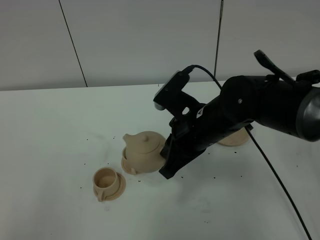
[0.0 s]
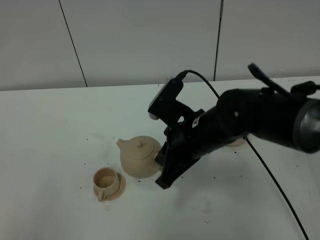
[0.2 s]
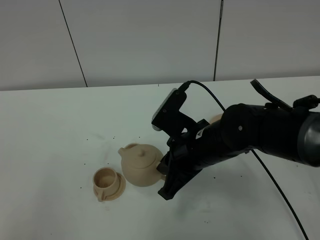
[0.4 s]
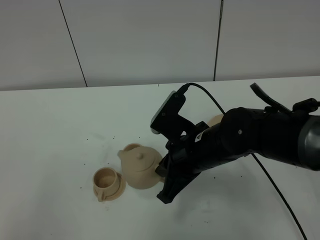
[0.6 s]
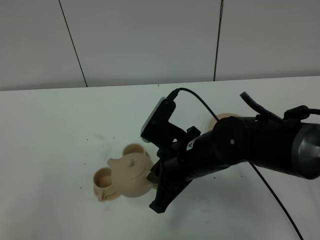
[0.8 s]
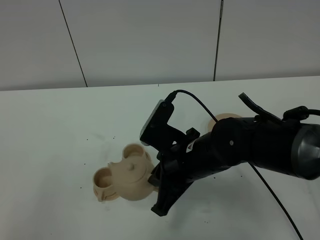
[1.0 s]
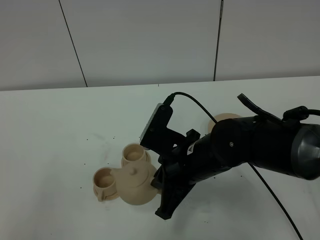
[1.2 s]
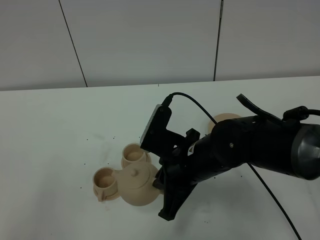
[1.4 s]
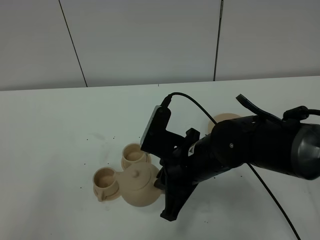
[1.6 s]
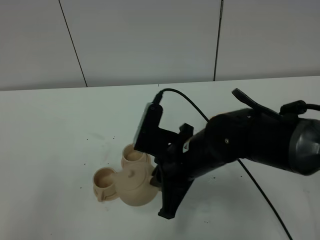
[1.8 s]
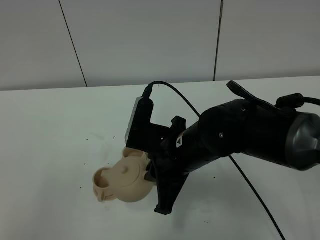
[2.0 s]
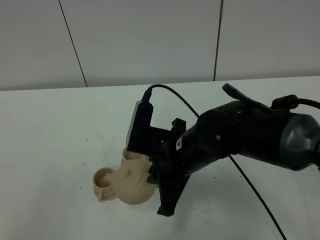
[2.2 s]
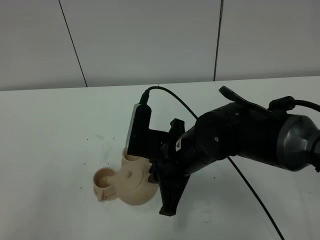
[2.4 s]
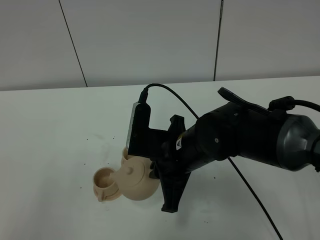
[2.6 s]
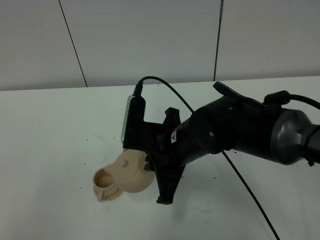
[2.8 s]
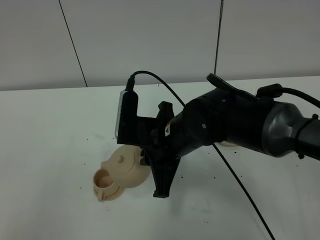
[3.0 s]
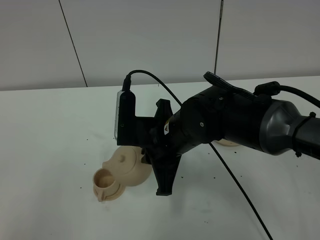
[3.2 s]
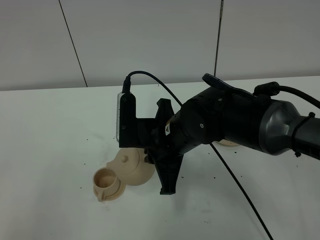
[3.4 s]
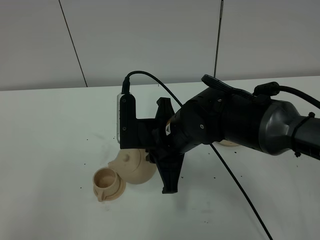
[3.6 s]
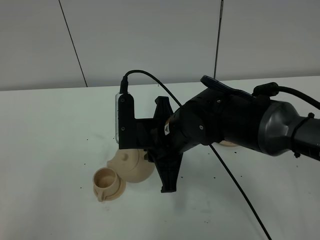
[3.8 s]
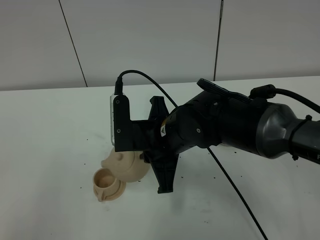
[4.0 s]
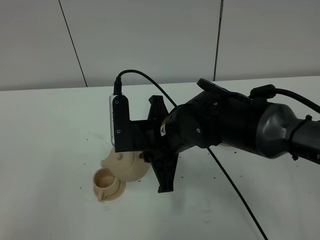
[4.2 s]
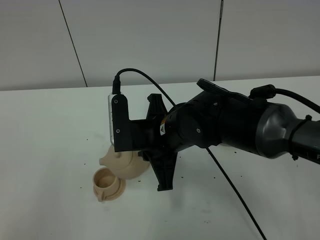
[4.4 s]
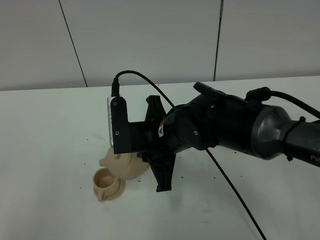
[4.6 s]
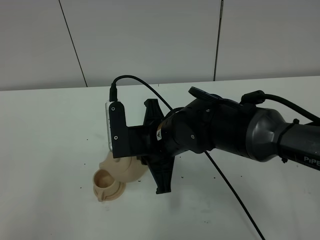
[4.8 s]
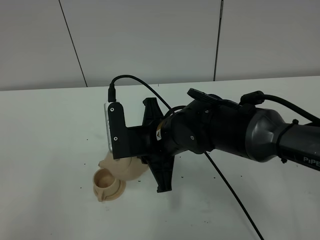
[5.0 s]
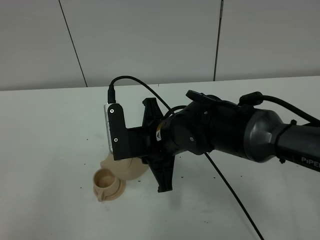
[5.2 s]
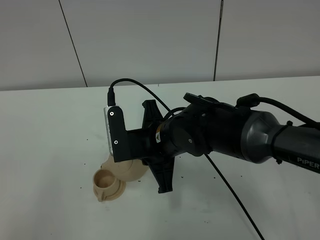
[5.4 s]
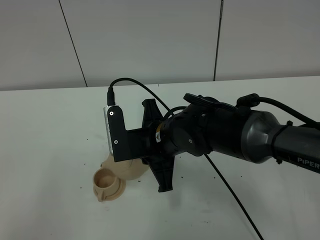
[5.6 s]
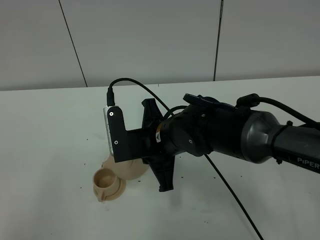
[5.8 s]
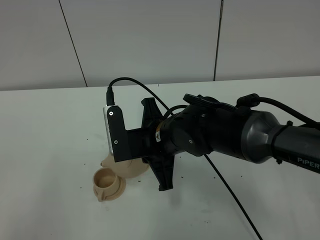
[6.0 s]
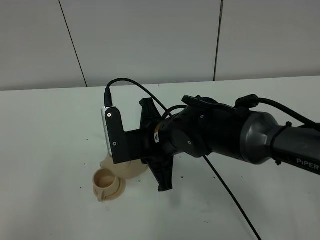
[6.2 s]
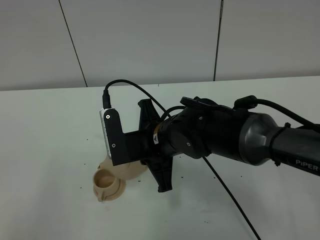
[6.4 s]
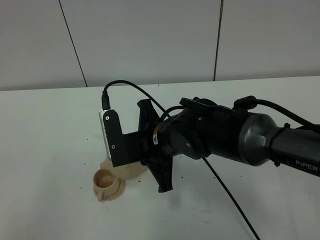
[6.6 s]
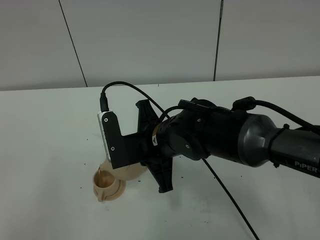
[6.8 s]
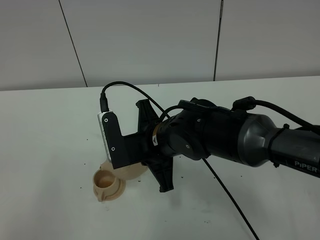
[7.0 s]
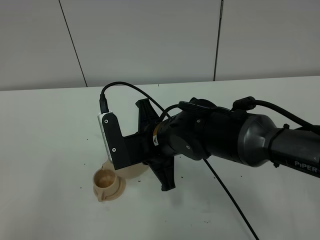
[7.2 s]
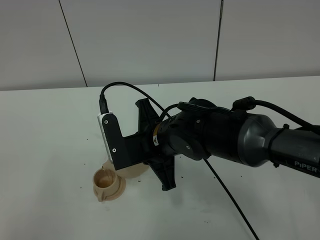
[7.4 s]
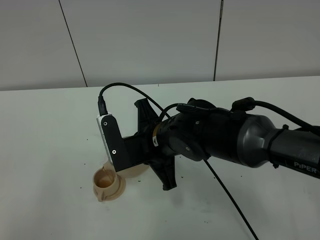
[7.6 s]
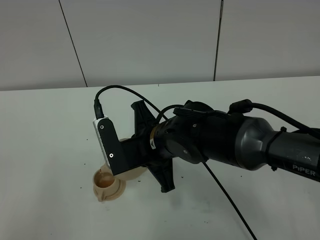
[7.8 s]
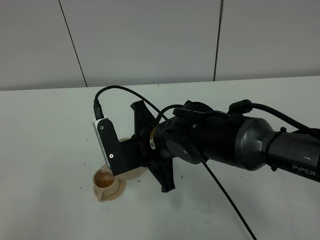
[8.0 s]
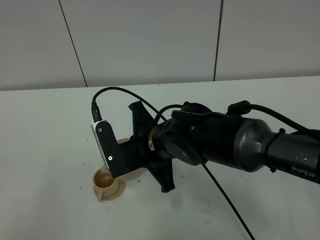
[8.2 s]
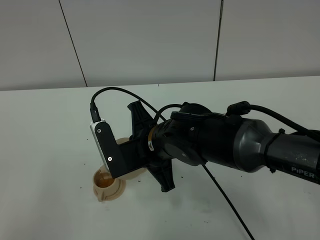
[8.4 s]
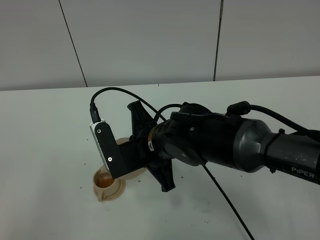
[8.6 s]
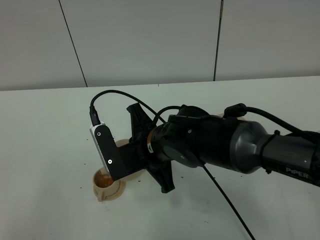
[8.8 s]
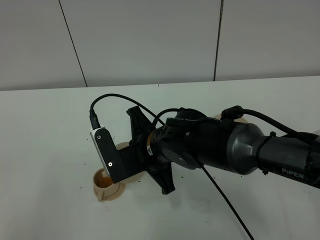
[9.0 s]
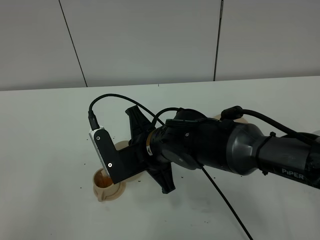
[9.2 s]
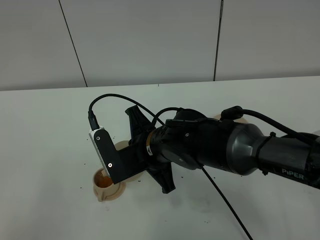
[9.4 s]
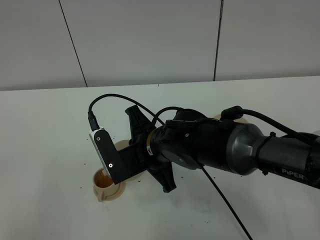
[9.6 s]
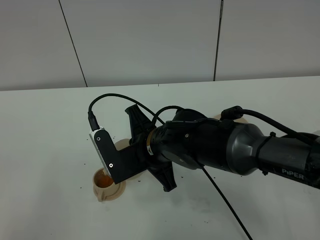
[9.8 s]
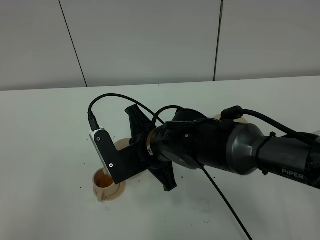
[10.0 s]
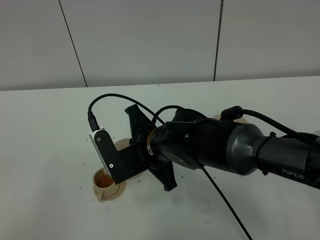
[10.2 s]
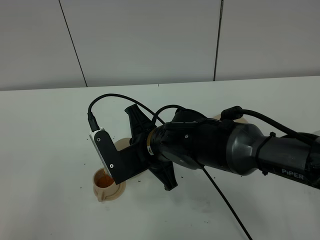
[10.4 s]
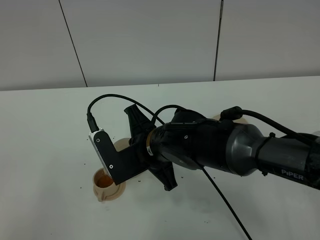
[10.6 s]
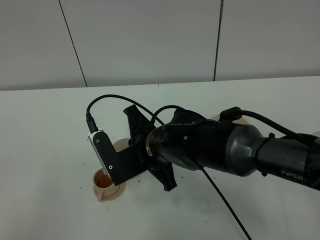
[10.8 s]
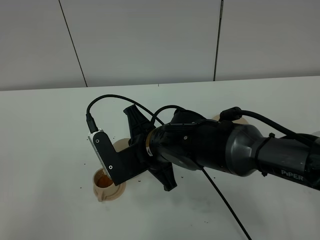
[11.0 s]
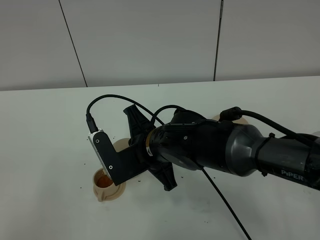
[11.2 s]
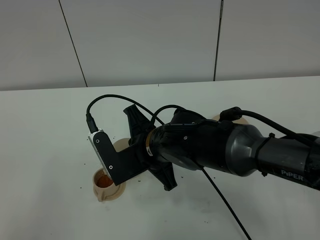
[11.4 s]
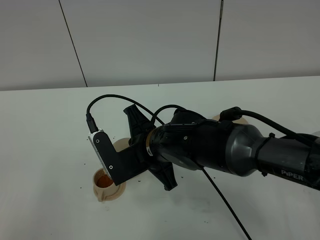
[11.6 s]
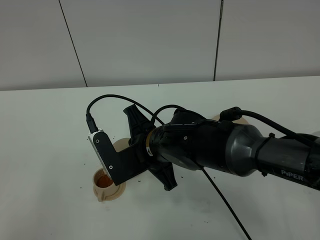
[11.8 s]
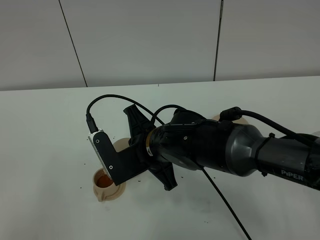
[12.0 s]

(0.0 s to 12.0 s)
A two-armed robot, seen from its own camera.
Task of the whole recording: grasp the brown teapot and pour the tea into the two brown teacups one by one, put the brown teapot back in its original place.
0.0 s - 1.6 s: The right gripper moves about 5 cm.
1.6 s - 3.0 s: The right gripper moves some 5 cm.
3.0 s - 6.0 s: The grippers make only small movements.
6.0 s - 9.0 s: The grippers stay close to where they were, moving slightly.
9.0 s - 12.0 s: Both grippers stay about where they are.

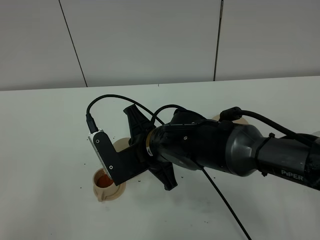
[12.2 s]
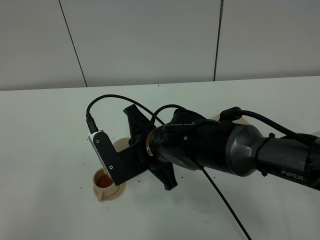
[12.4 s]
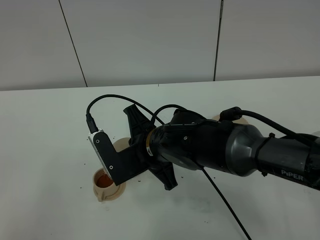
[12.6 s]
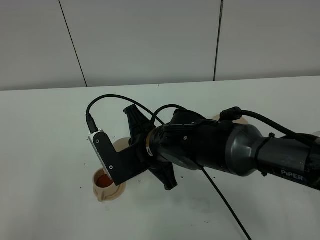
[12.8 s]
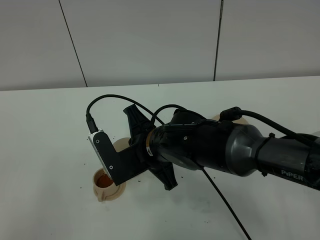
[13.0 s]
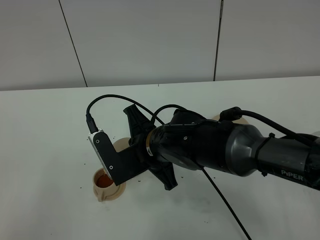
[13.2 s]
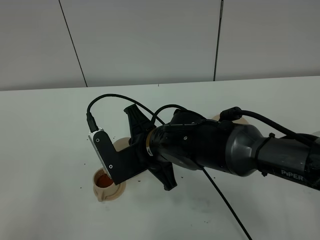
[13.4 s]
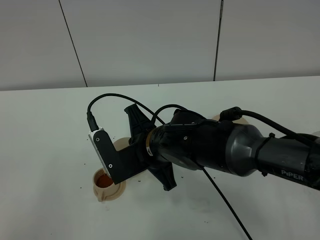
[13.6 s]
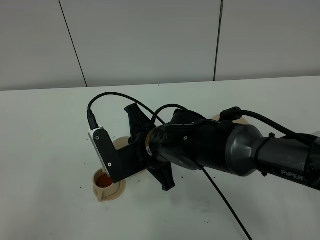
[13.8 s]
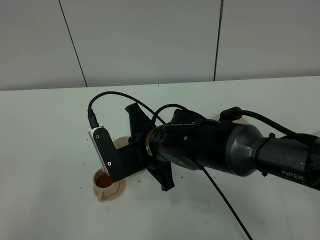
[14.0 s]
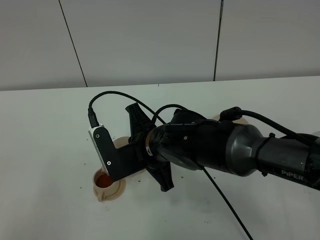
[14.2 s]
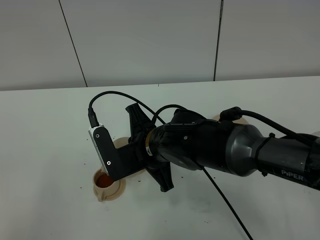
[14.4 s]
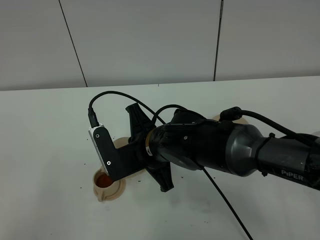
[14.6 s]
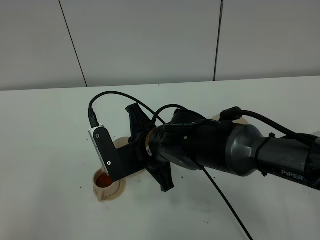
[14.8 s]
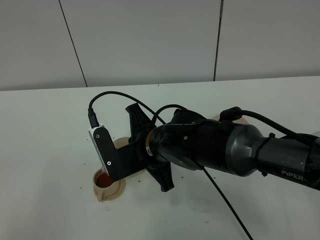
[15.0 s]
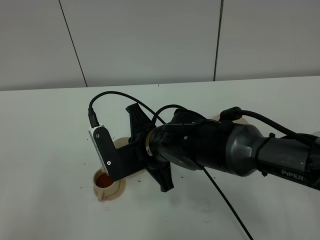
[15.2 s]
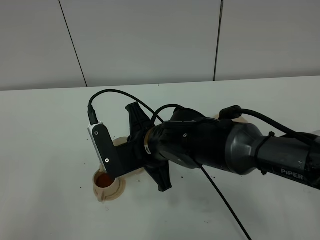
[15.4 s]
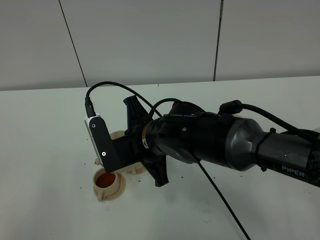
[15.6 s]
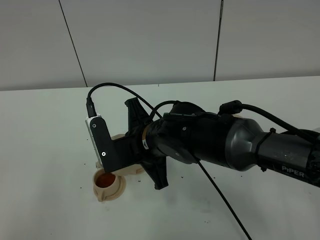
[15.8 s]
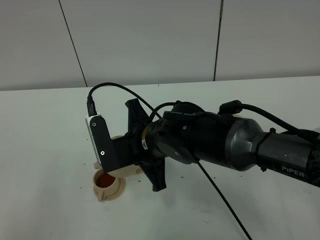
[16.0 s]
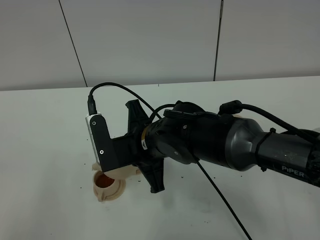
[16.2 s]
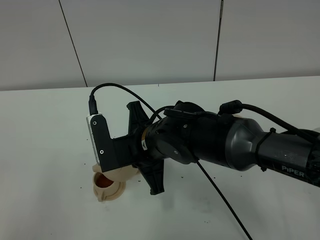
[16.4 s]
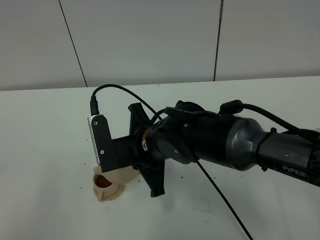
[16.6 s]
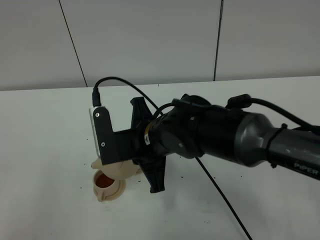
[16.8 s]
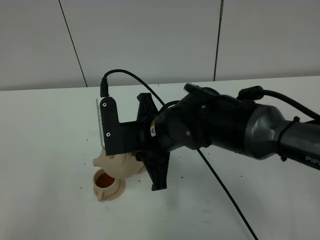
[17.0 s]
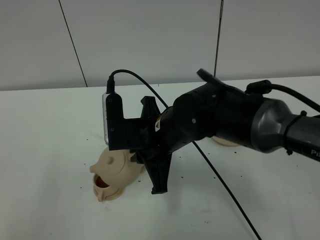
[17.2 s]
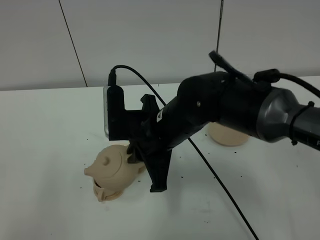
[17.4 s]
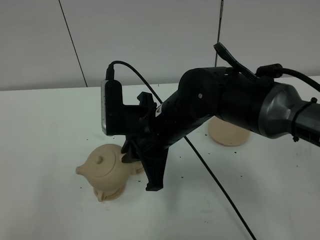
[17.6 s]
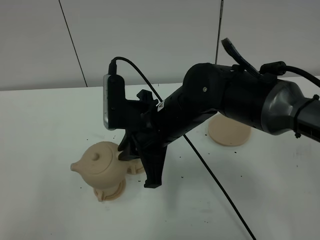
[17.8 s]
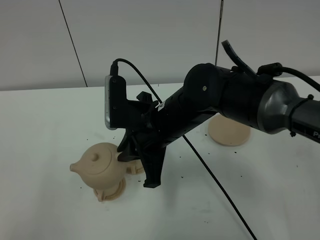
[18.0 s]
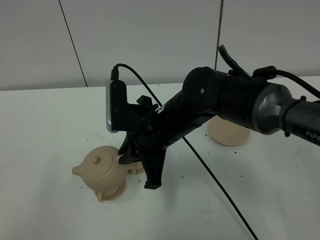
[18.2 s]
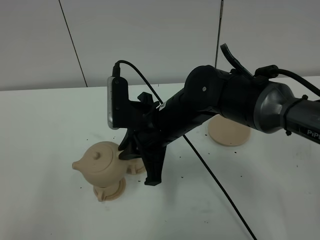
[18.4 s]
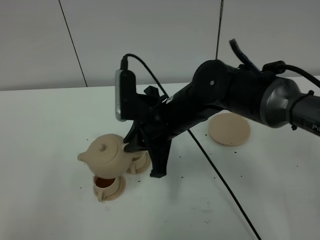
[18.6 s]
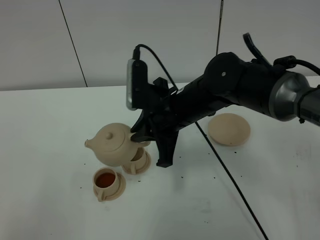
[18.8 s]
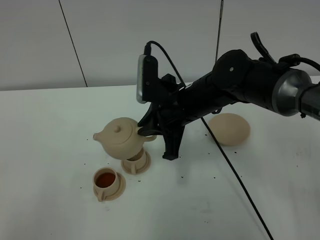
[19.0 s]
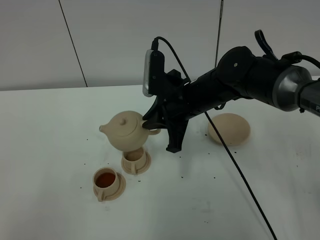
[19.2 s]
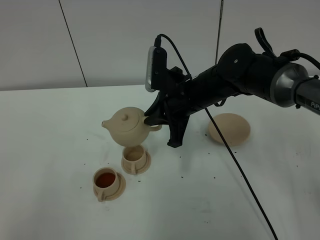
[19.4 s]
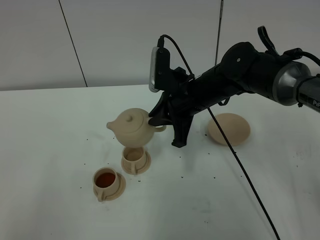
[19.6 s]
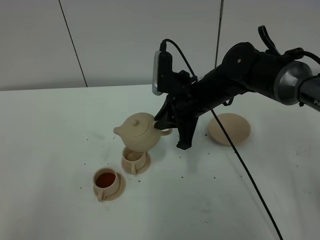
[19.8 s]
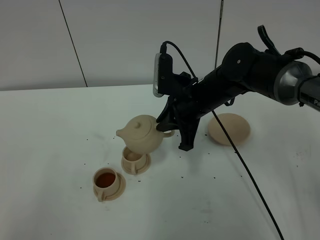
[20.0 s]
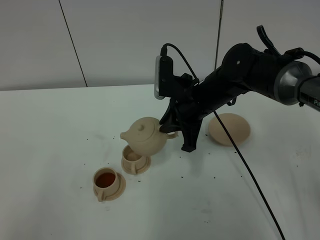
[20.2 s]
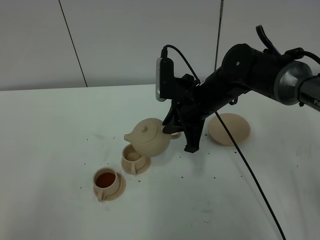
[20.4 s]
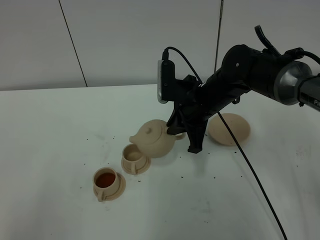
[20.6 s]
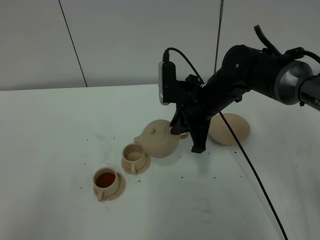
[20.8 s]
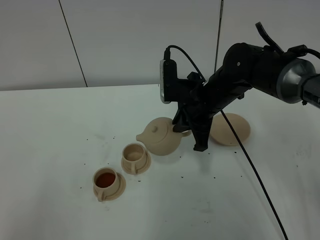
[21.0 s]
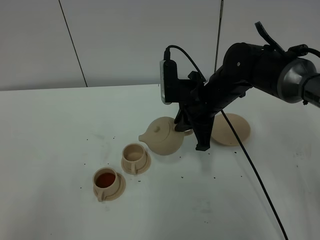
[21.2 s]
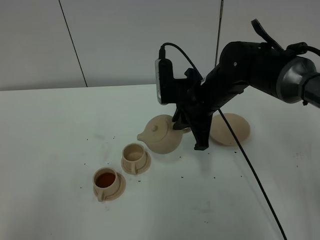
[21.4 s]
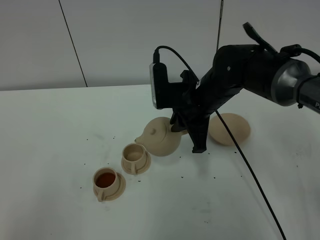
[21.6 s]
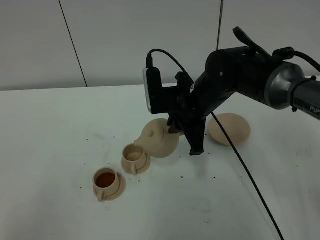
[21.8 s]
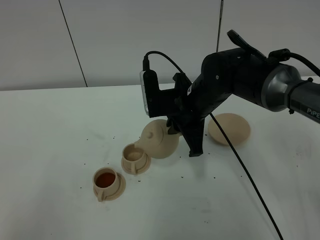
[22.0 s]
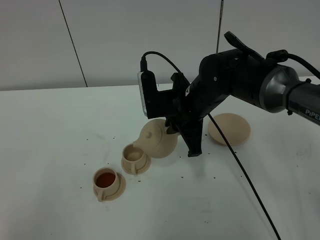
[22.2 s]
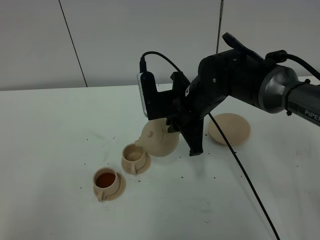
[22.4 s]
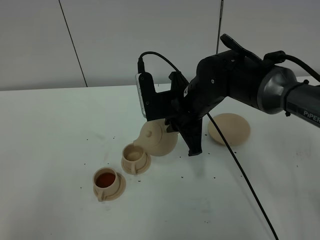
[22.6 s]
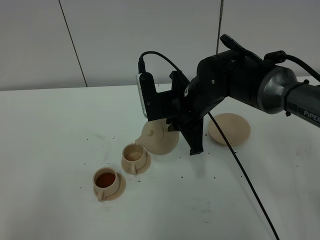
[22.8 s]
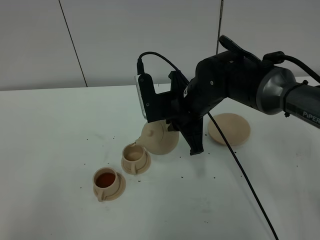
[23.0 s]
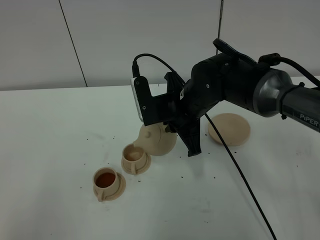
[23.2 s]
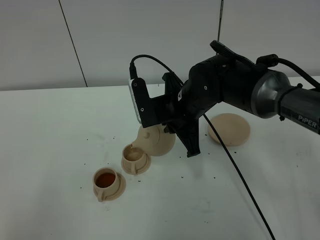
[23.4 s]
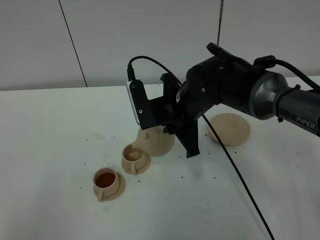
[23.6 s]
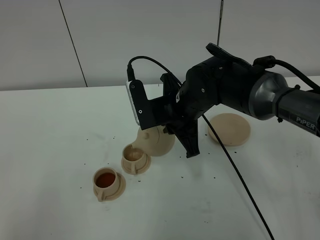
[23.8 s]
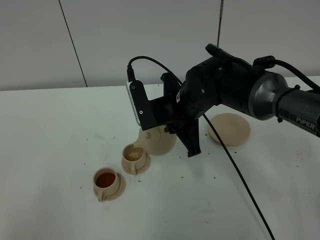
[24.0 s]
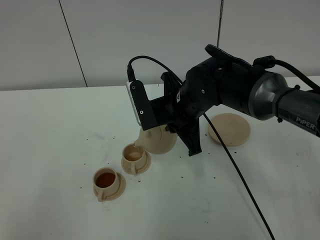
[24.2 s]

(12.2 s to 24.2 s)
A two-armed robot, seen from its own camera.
Task of the whole recording: grasp the brown teapot and pour the tea into the two brown teacups one by one, put the brown teapot back in its original place.
12.2 s - 15.2 s: Both grippers stay about where they are.
15.2 s - 16.6 s: The grippers move only a little.
18.2 s - 19.8 s: The right gripper travels forward and to the right by approximately 10 cm.
19.8 s - 21.2 s: The grippers make only small movements.
21.2 s - 22.6 s: The grippers move only a little.
22.6 s - 24.2 s: There are only small adjustments of the grippers.
